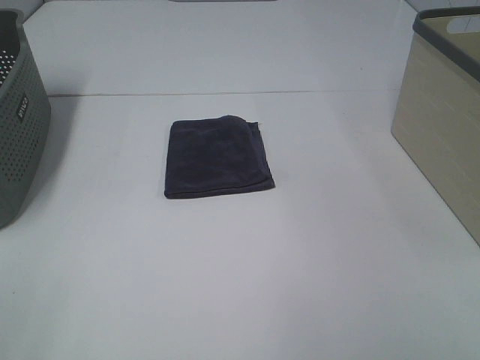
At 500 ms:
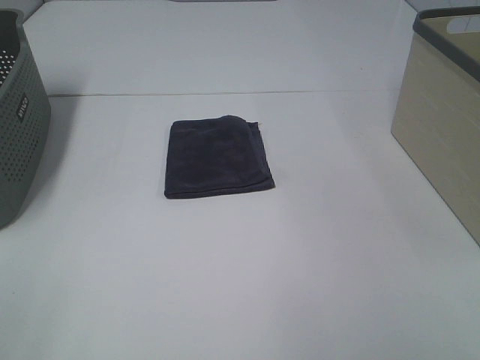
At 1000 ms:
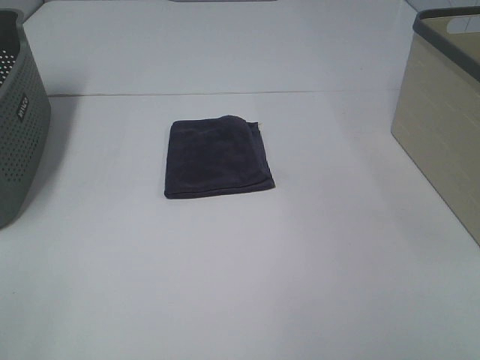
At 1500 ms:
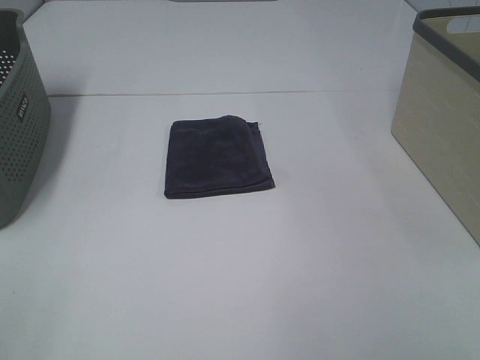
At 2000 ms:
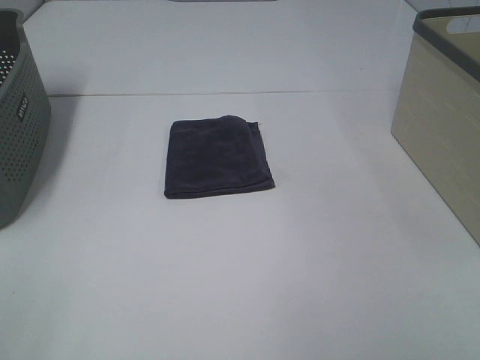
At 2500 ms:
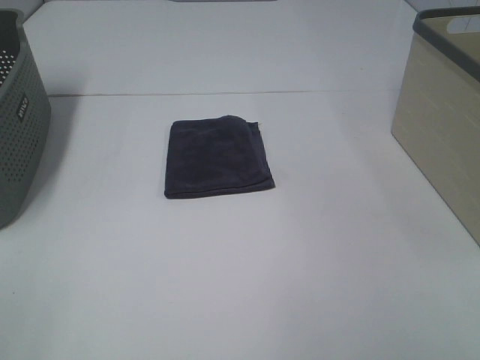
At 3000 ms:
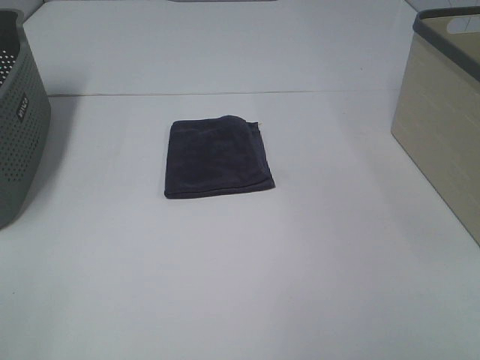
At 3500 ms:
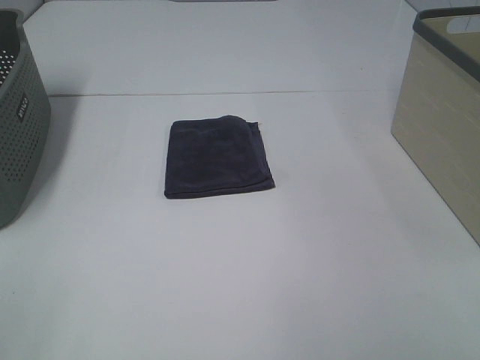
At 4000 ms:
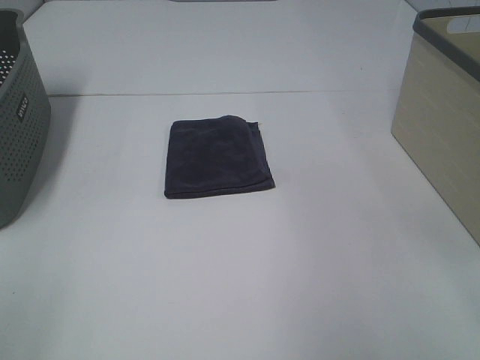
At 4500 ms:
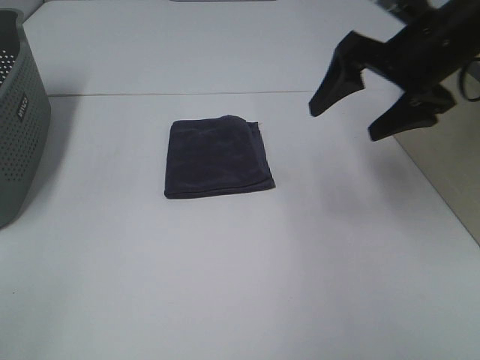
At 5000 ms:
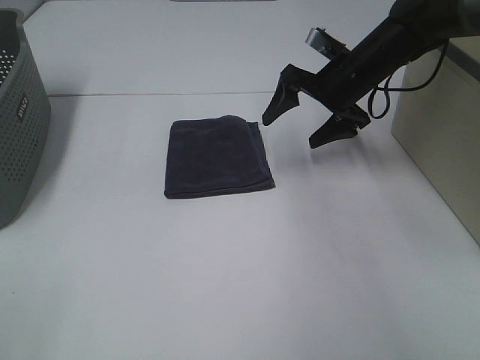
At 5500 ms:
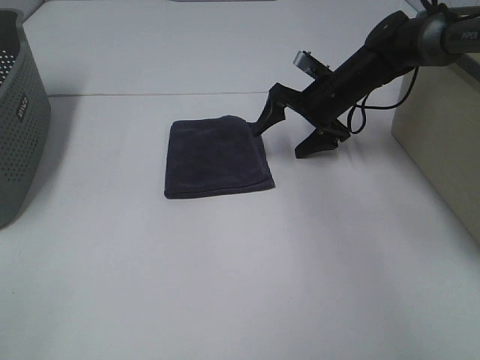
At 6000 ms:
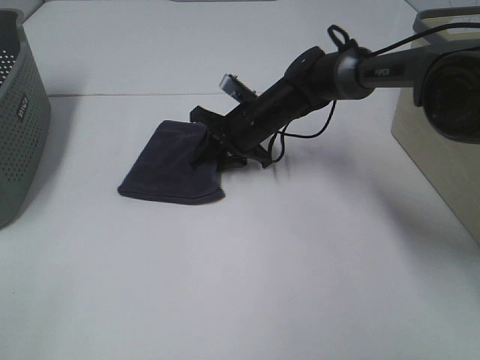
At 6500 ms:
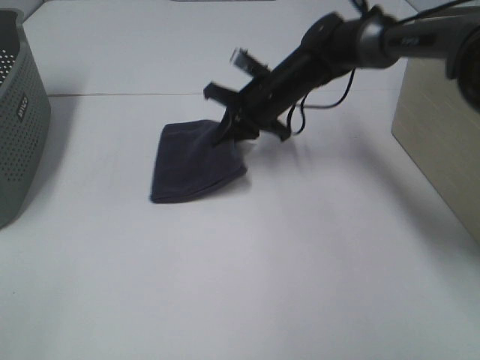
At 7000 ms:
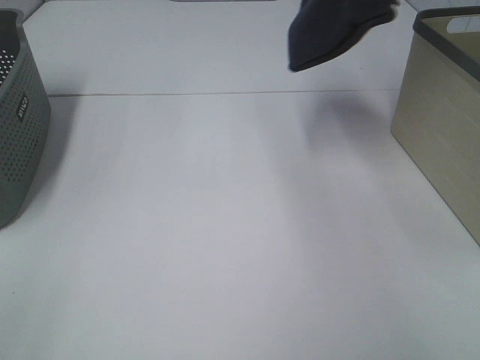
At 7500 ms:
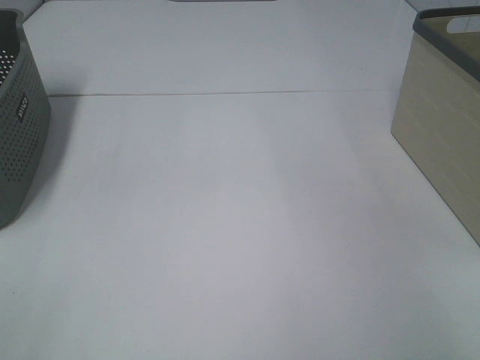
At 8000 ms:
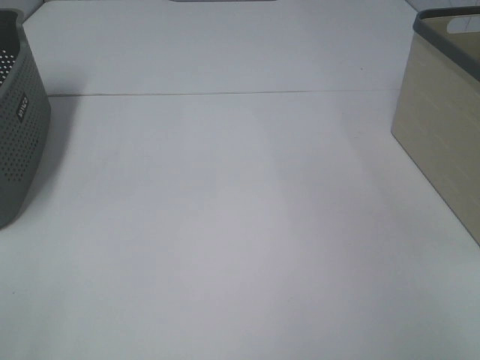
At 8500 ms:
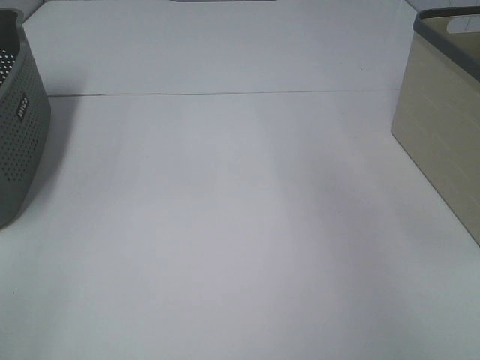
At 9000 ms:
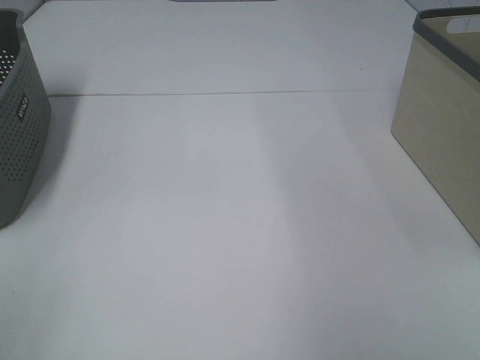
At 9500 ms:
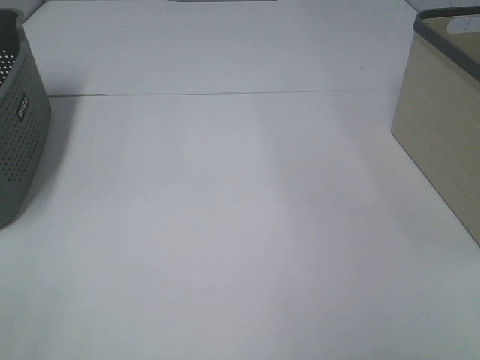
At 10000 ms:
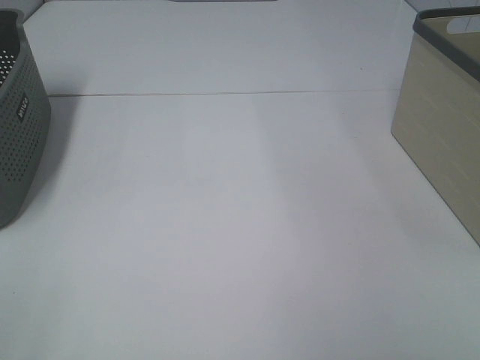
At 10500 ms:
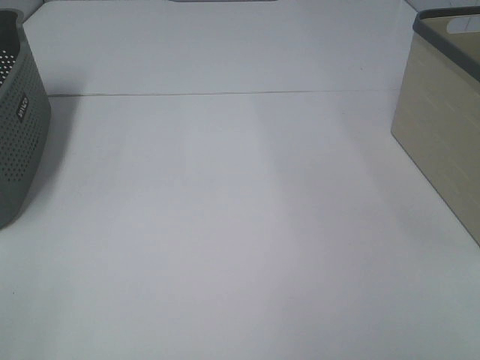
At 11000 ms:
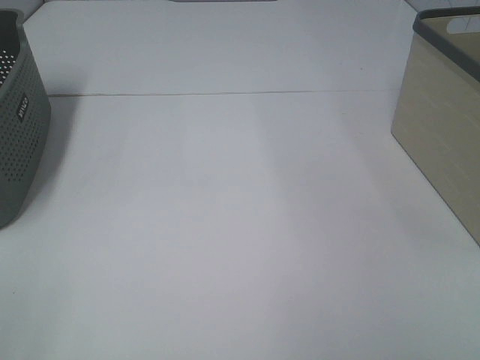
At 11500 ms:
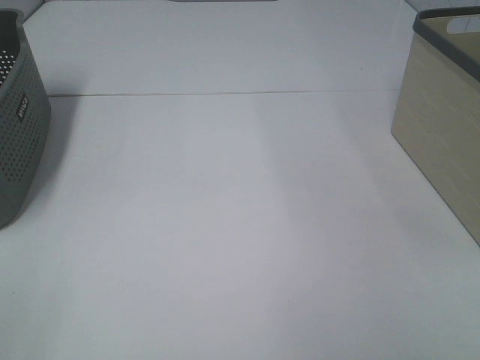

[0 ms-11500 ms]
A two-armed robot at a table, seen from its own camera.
Step, 0 ms to 6000 ms: Right hand: grab the folded grey towel.
Step, 6500 ms to 7500 ms: Right hand: place the grey towel in right basket.
0 ms to 2000 ms: Neither gripper changes place.
4000 ms to 6000 ms: The right gripper heads forward, downward and to the left, covering about 50 cm, and closes its fingers.
6000 ms to 7500 ms: The right gripper is displaced to the right and upward by some 50 cm.

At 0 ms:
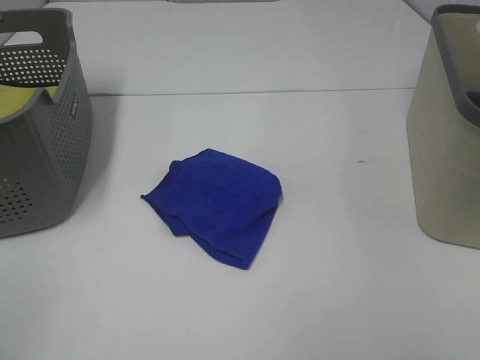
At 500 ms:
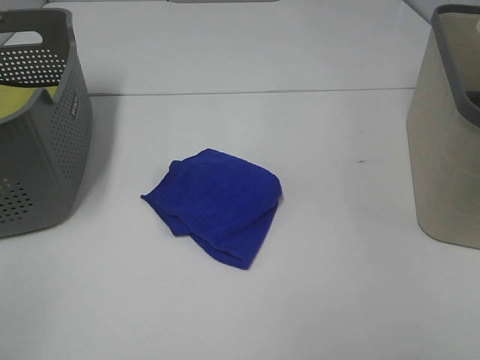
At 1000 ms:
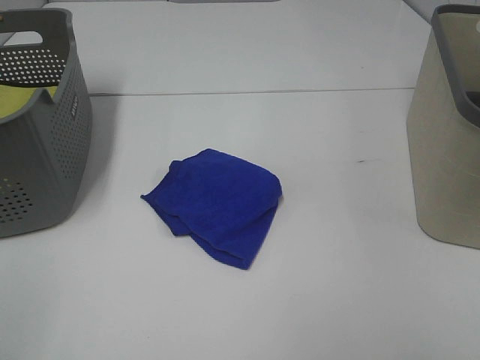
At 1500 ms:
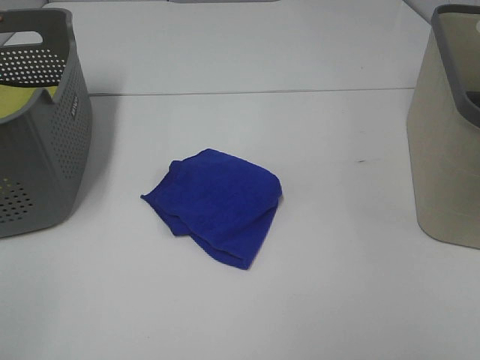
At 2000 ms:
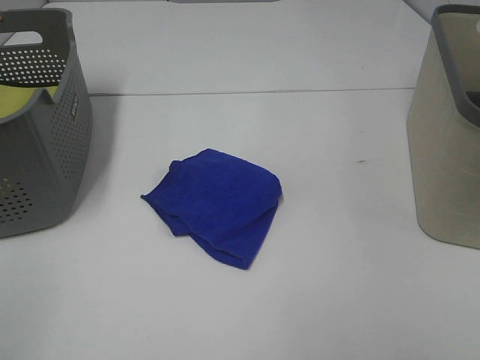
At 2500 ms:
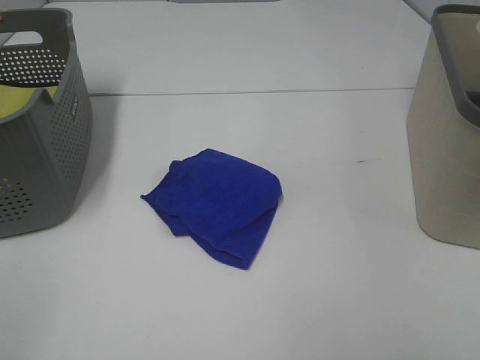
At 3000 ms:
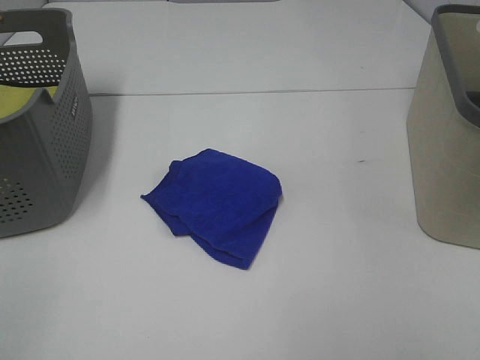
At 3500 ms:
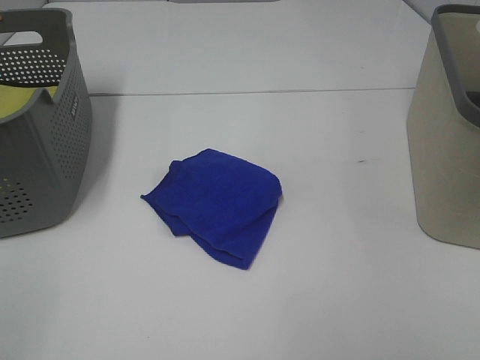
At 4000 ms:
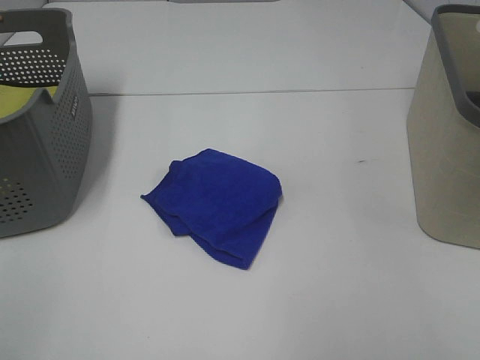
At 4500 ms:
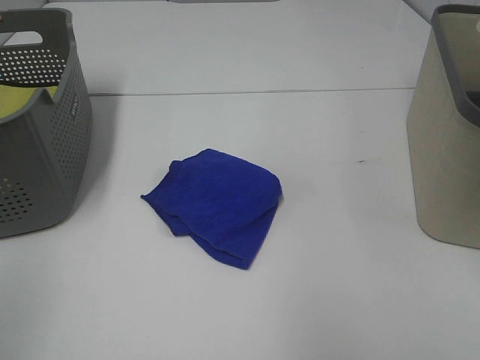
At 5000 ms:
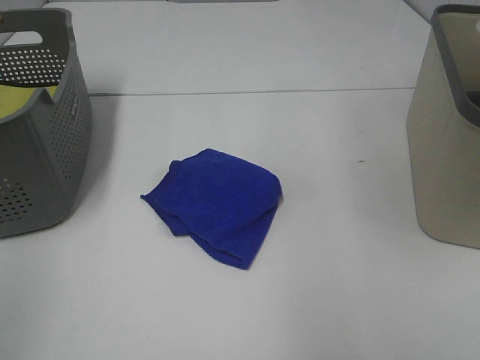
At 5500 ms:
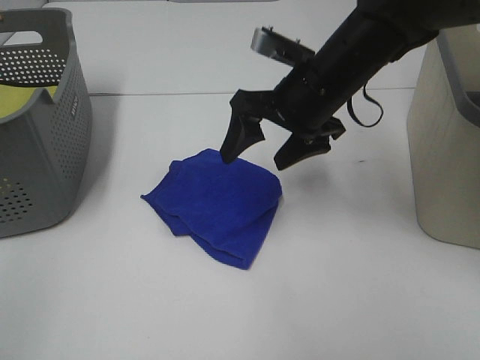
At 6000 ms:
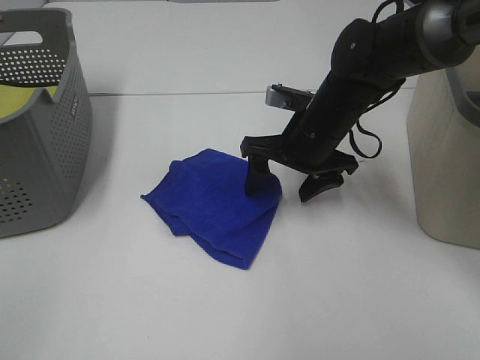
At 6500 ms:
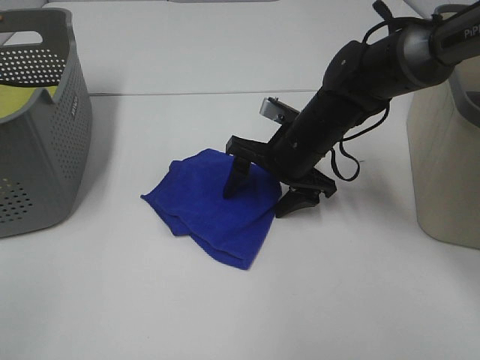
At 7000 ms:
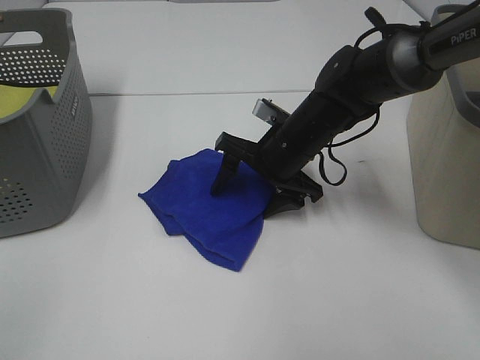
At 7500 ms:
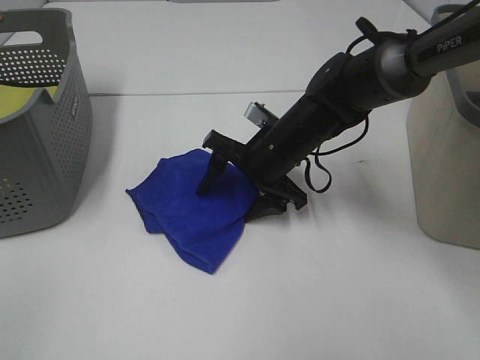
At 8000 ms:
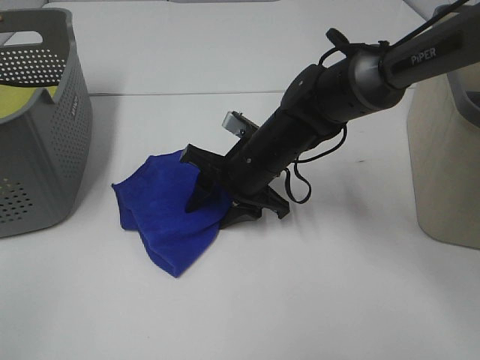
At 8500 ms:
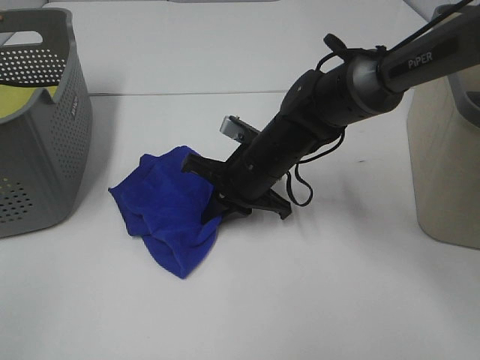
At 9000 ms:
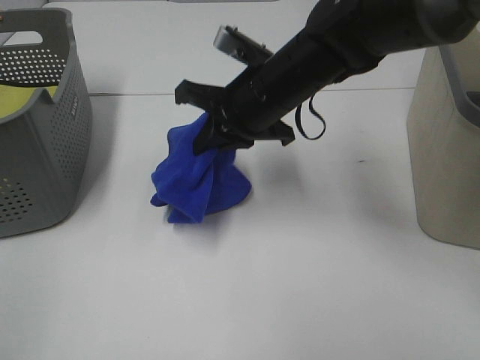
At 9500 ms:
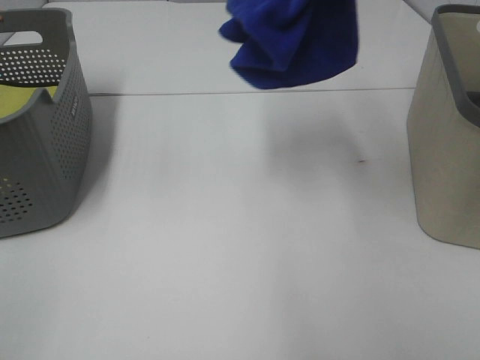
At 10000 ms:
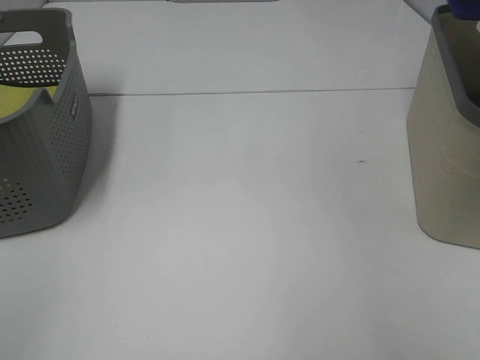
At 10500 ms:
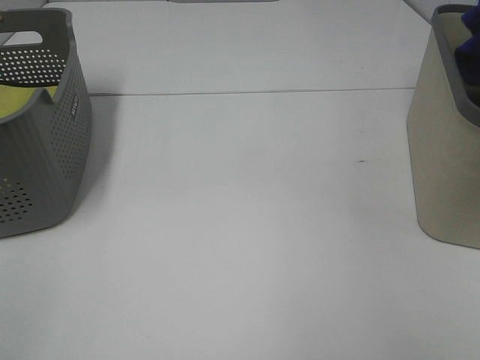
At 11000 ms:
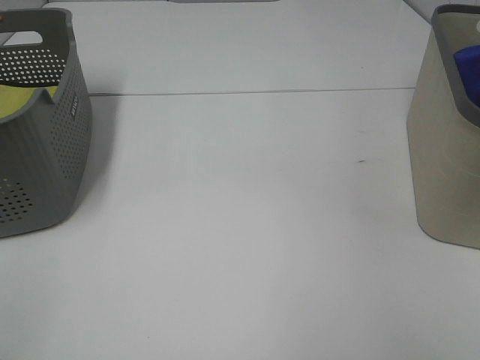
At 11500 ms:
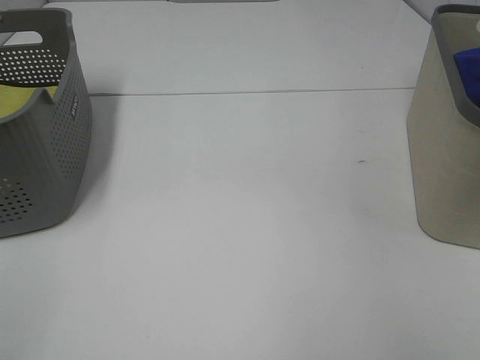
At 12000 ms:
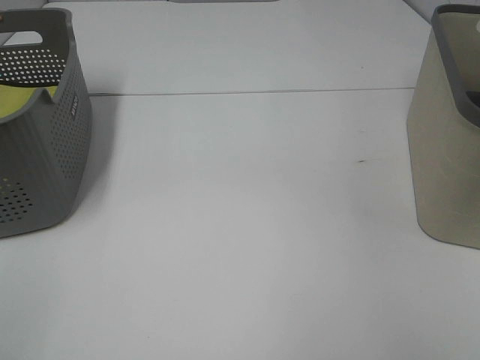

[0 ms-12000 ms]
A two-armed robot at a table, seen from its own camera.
Step, 0 ms to 8500 ms: Right hand: grab the folded blue towel.
4000 ms to 6000 ms: The right gripper shifts approximately 50 cm forward, downward and to the left.
6000 ms to 8000 ms: The right gripper heads to the left, covering roughly 5 cm, and closes its fingers.
8000 ms to 10000 ms: The right gripper moves to the right and upward, roughly 50 cm, and closes.
10000 ms to 12000 ms: The right gripper moves downward, approximately 10 cm, and opens up.

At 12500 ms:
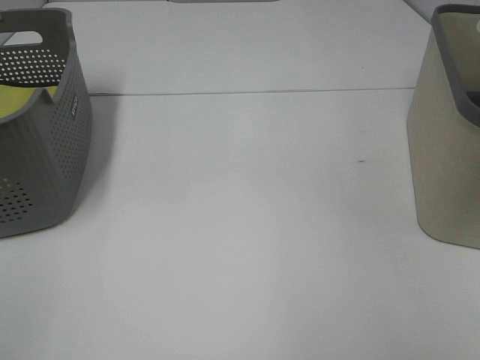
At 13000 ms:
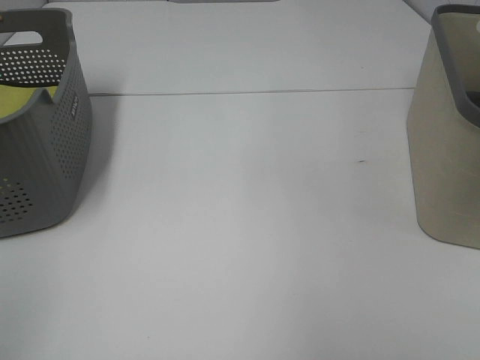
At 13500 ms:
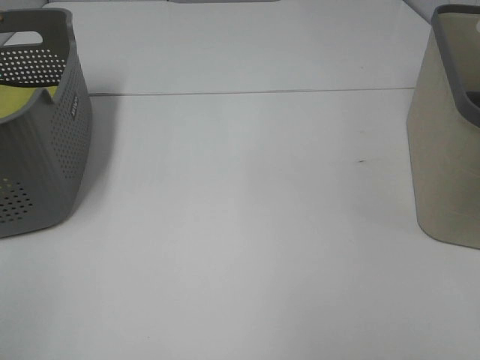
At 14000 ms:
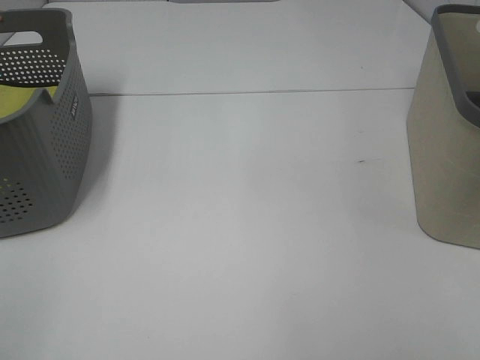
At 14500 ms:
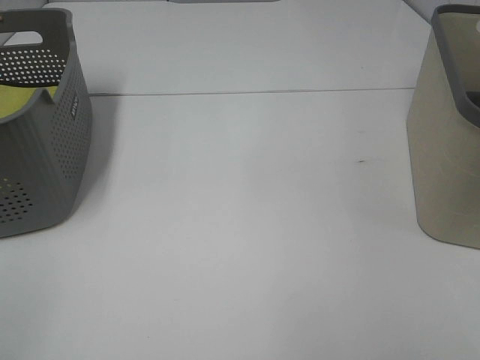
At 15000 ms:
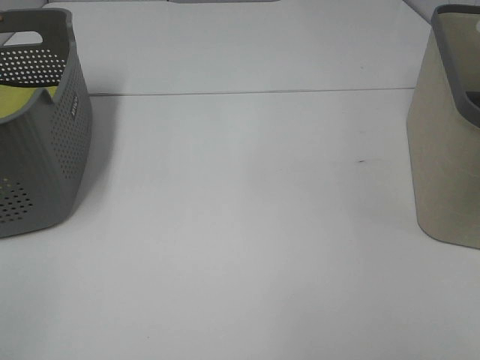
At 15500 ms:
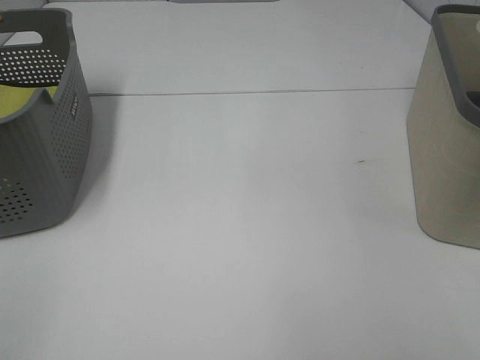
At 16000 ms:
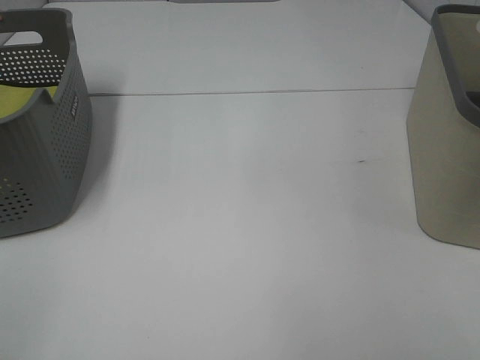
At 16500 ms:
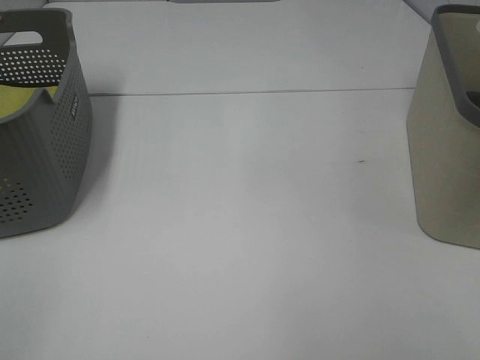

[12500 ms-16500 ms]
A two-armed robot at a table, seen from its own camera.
14500 ms to 16500 ms: The two grippers keep their place.
